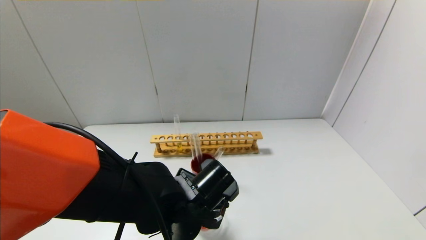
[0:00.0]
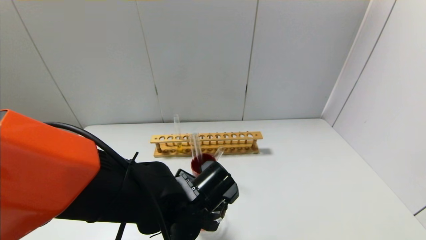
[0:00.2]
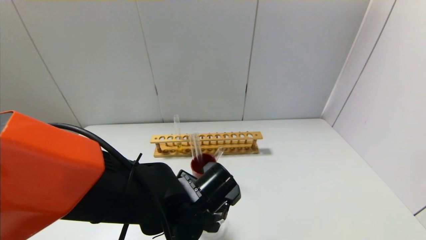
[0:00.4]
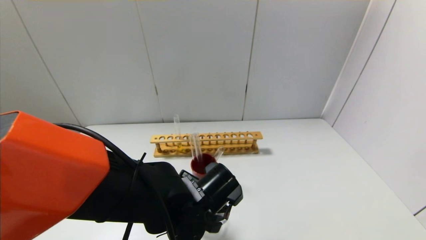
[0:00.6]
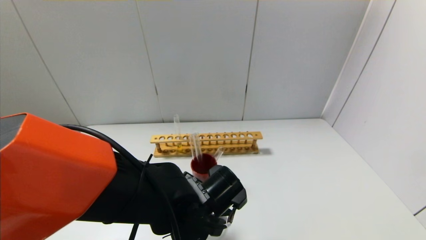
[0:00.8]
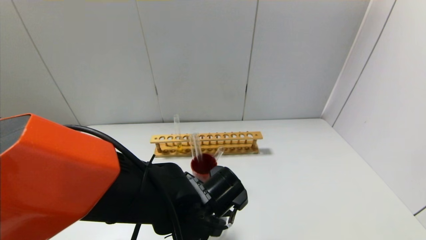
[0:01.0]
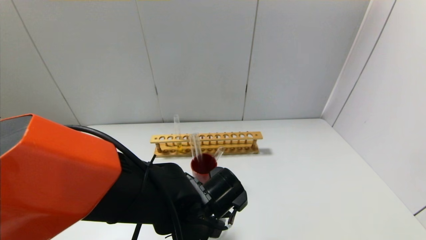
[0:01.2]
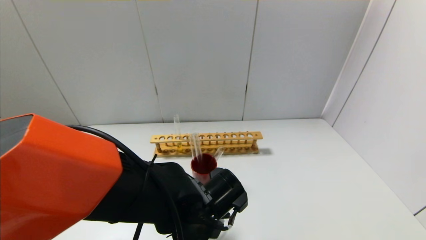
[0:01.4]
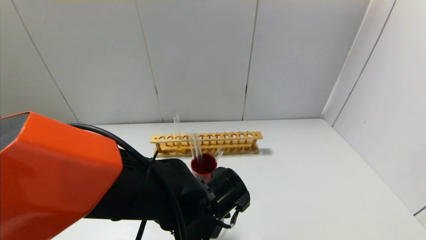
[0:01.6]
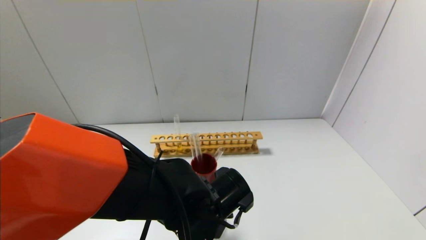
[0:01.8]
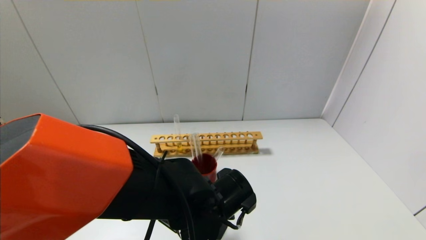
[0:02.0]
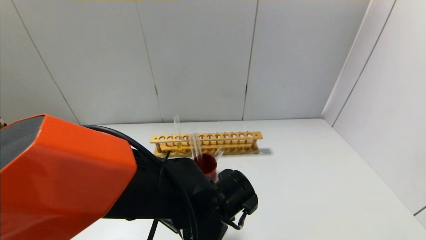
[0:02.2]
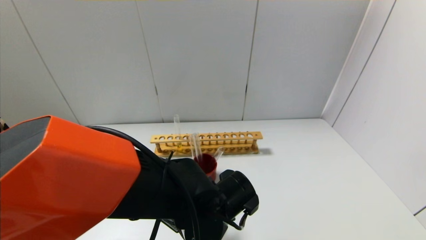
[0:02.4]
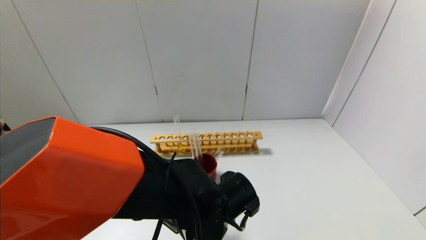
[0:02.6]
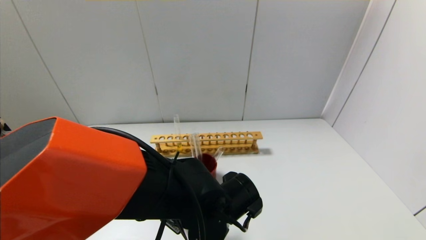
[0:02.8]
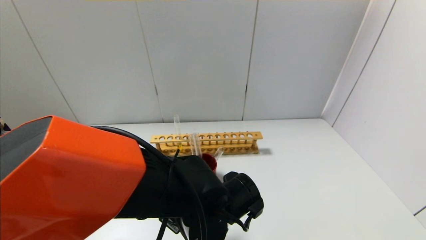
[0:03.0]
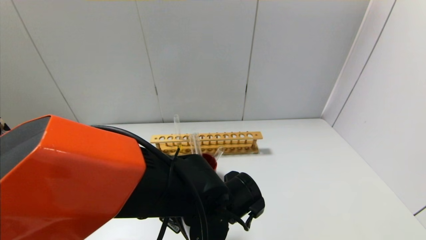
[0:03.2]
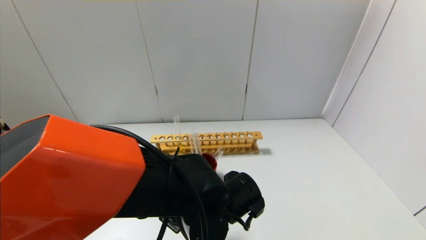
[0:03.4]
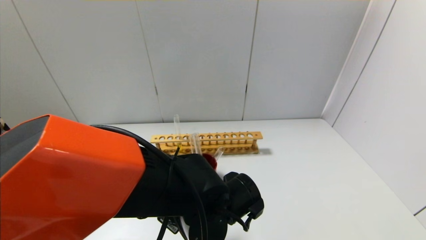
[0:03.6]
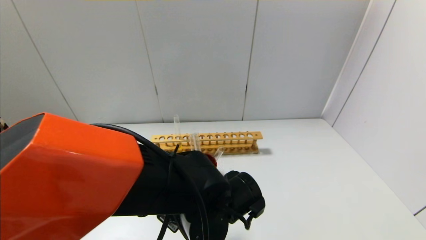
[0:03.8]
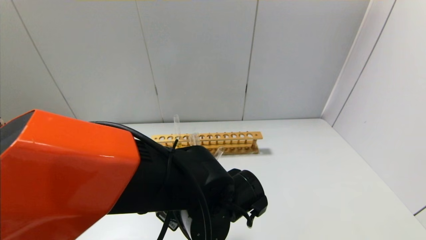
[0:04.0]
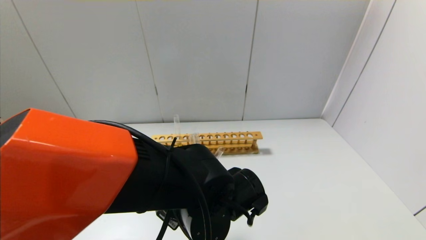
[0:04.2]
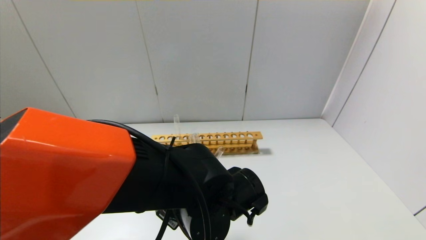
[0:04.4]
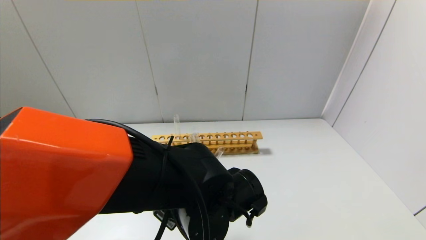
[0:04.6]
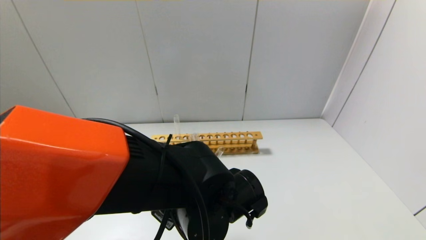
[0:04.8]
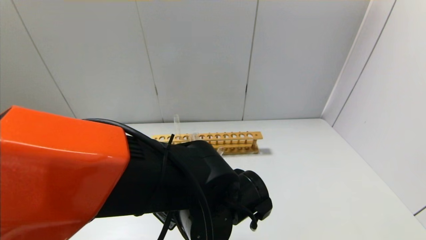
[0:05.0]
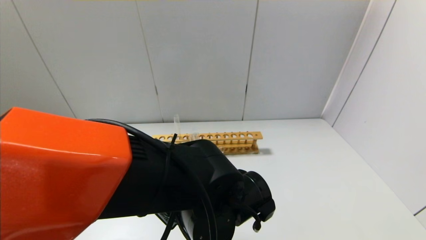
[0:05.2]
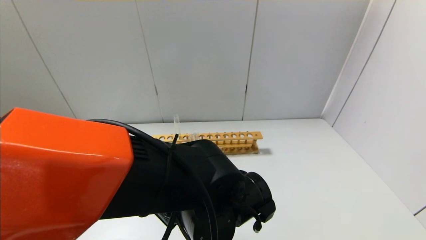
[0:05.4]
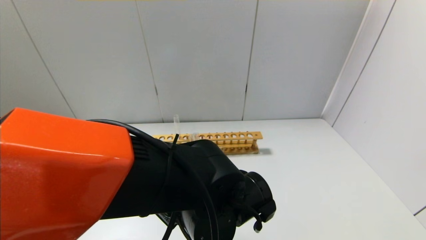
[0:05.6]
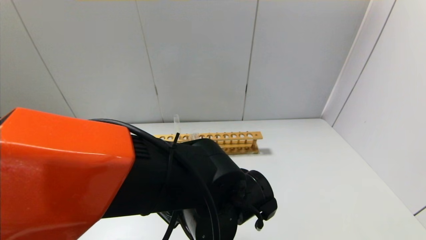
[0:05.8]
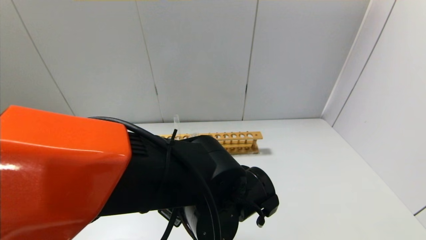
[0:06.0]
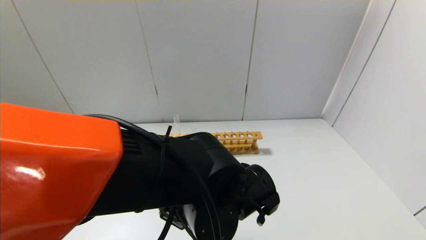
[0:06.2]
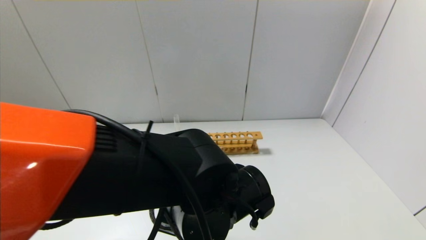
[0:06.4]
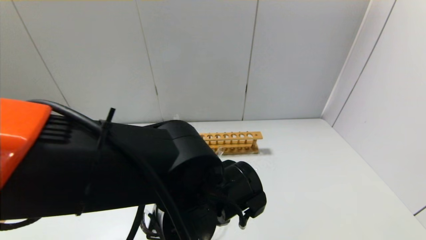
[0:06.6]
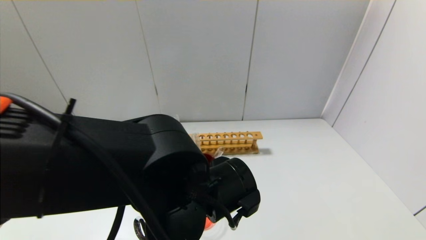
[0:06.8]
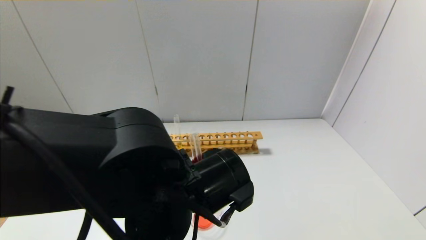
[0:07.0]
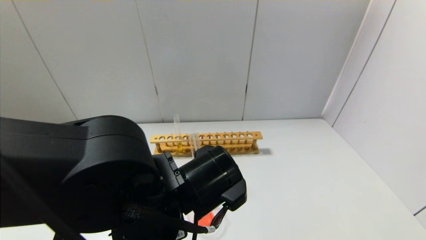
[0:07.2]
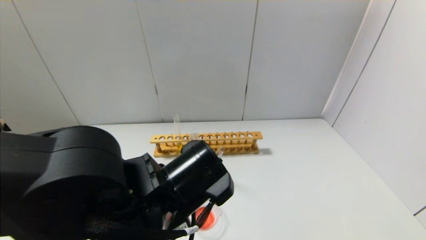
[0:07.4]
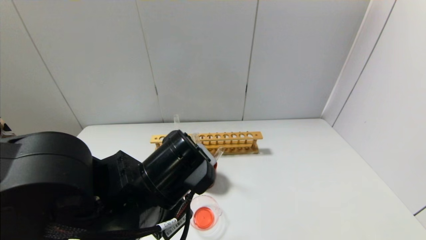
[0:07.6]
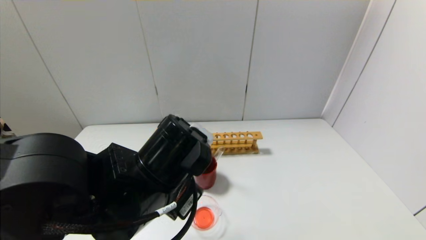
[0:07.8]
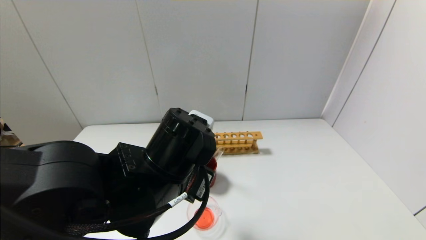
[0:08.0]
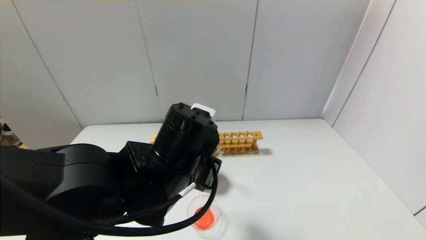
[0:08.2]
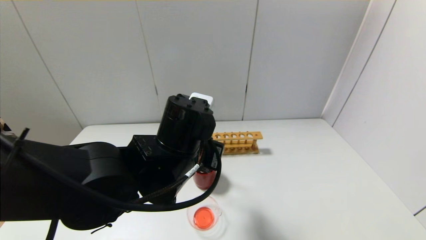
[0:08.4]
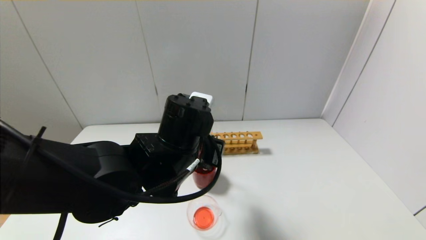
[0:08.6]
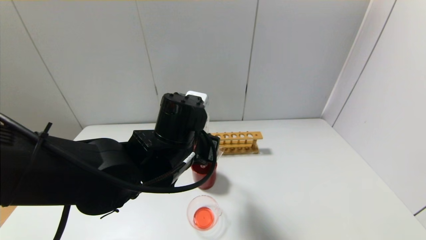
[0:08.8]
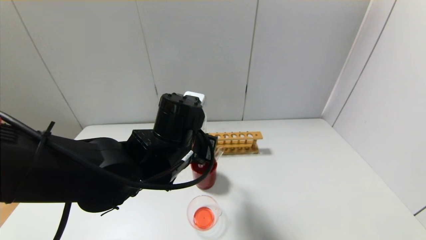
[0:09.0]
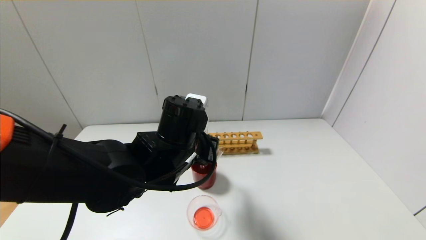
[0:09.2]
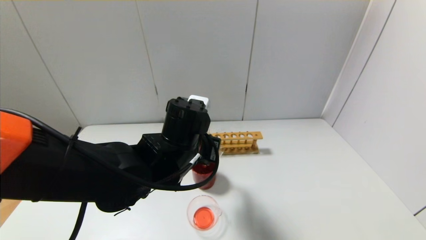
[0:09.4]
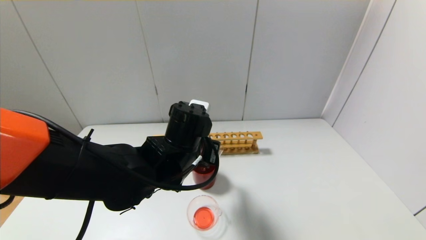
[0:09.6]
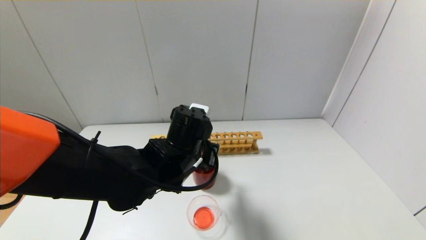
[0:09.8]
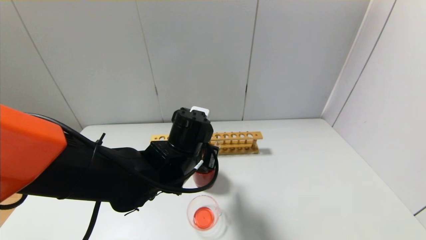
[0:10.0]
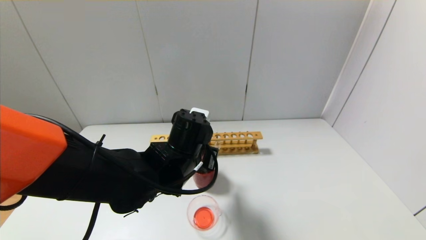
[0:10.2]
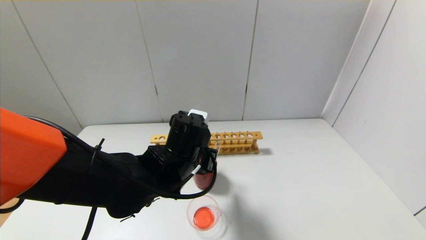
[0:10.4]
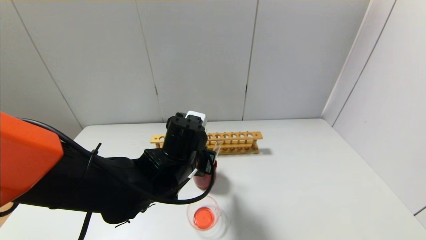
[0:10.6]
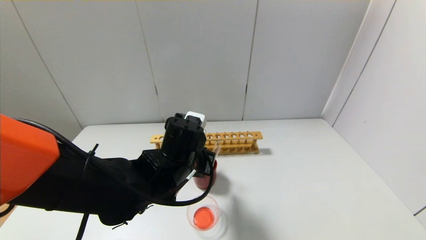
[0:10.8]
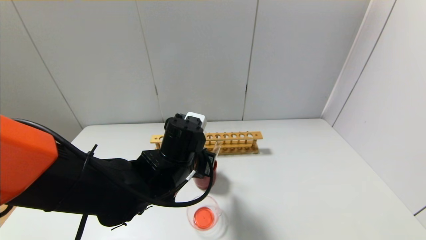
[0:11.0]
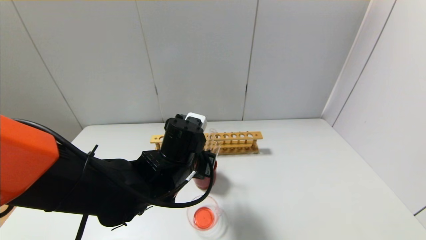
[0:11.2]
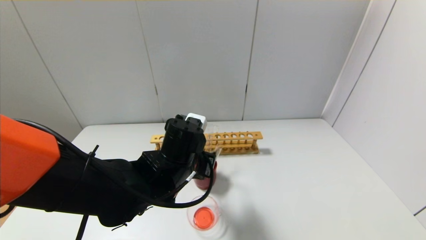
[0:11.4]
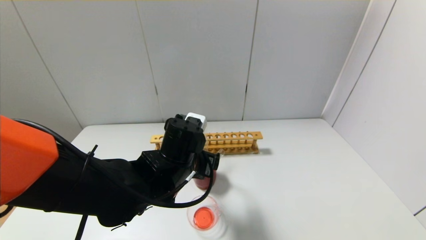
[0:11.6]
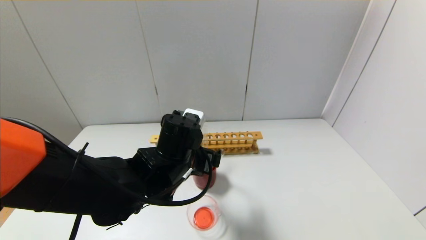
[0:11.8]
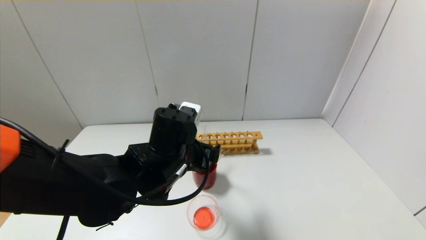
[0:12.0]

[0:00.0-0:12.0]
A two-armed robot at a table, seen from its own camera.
Step, 0:00.0 to 0:06.6: Pour the red reagent into the graduated cylinder with the left gripper.
Step, 0:06.8 to 0:11.2: Place the test tube into the brown cup with the left gripper.
0:00.0 to 0:04.4: There are only small adjustments of the grippers.
0:04.4 to 0:06.0: The grippers make only small movements.
0:06.0 to 0:07.6: The left gripper travels to the left by approximately 5 cm.
0:07.6 to 0:09.0: The left gripper travels forward by approximately 10 cm.
0:09.0 to 0:10.4: The grippers stay close to where they were, moving slightly.
0:10.4 to 0:12.0: The left gripper opens its fingers.

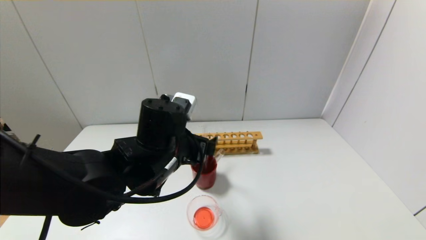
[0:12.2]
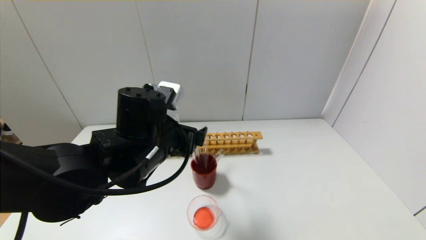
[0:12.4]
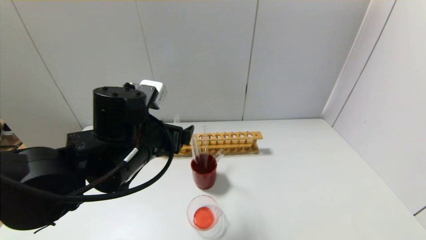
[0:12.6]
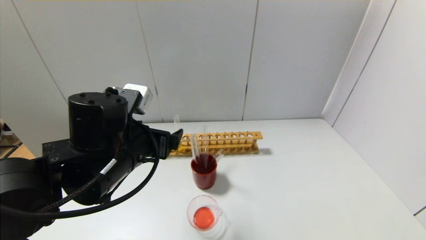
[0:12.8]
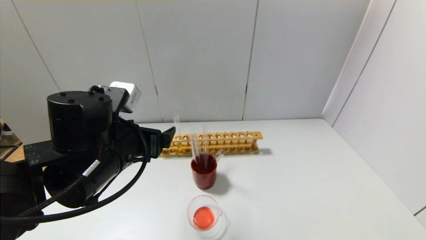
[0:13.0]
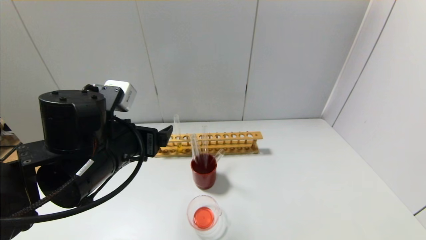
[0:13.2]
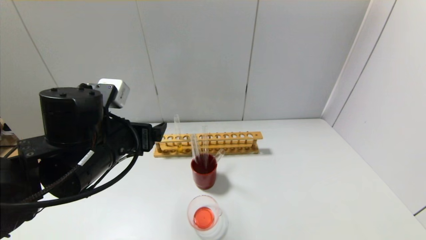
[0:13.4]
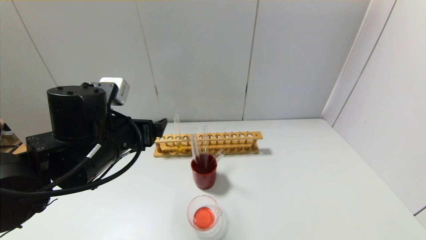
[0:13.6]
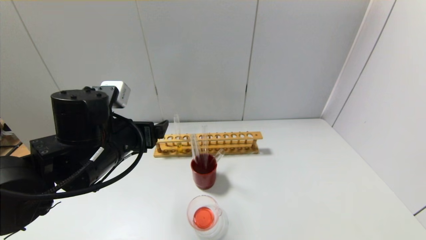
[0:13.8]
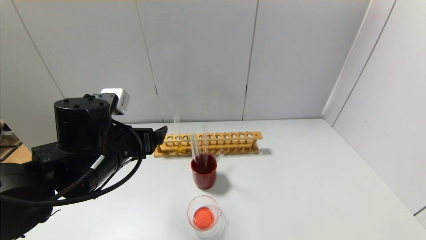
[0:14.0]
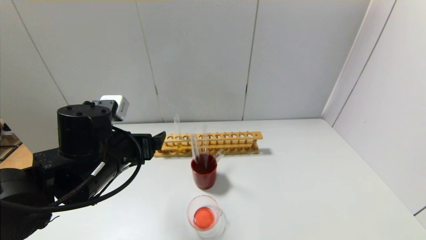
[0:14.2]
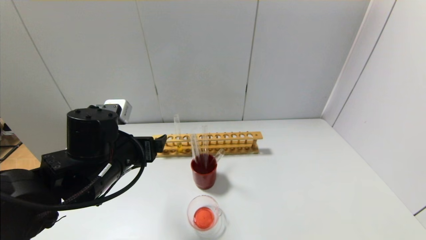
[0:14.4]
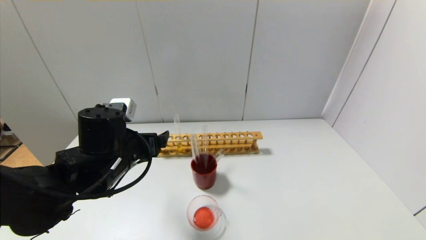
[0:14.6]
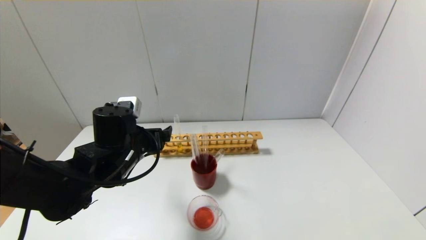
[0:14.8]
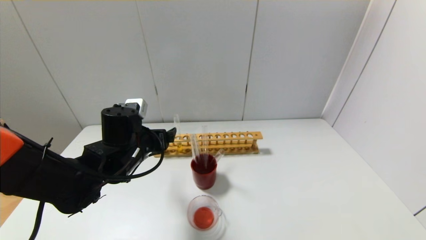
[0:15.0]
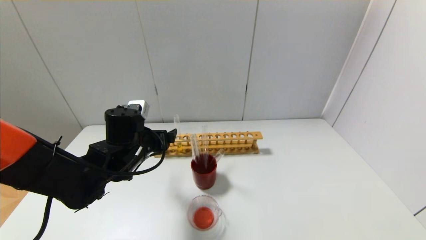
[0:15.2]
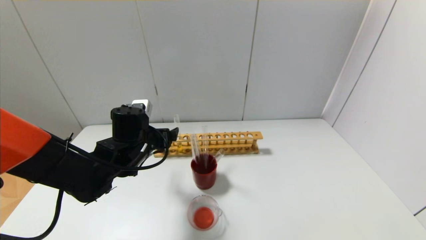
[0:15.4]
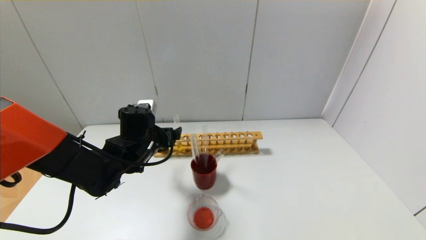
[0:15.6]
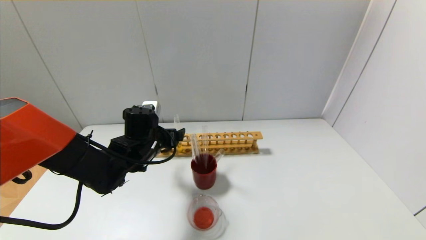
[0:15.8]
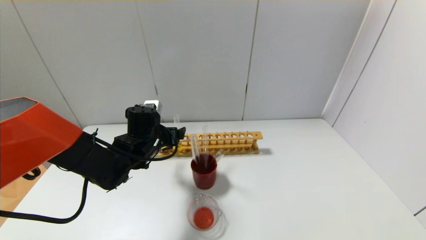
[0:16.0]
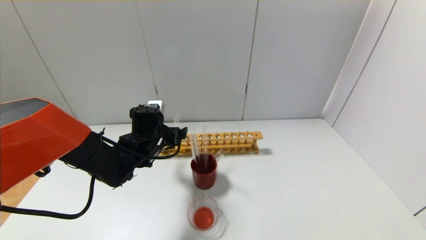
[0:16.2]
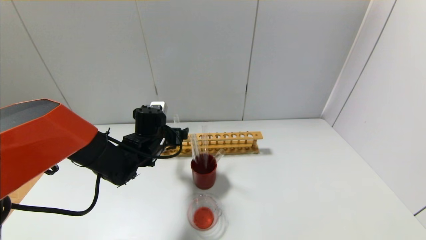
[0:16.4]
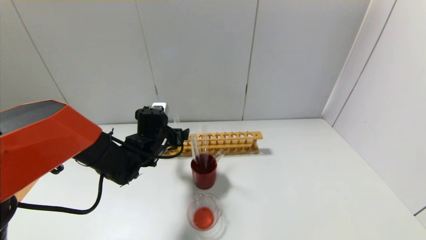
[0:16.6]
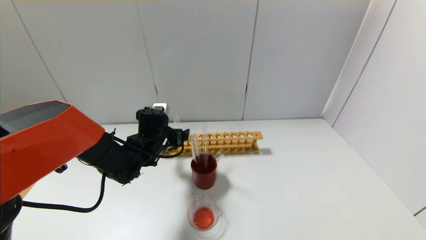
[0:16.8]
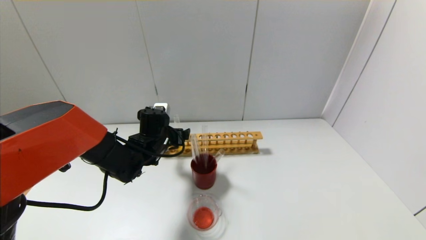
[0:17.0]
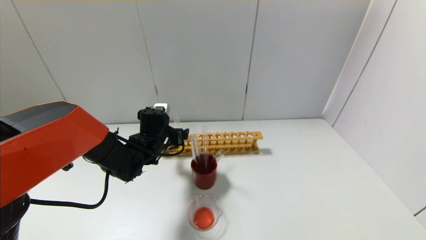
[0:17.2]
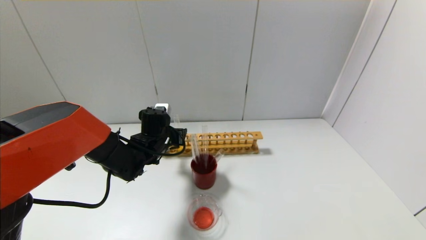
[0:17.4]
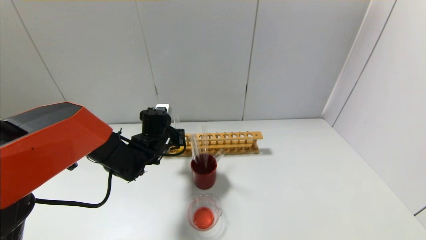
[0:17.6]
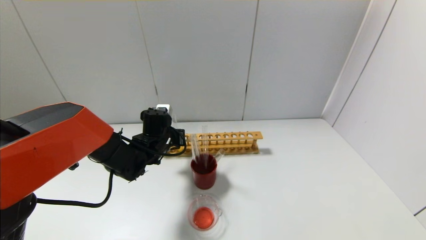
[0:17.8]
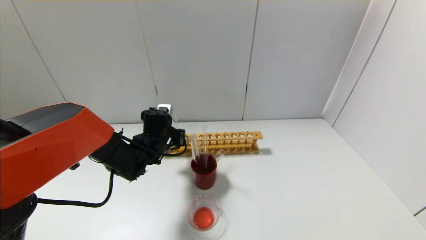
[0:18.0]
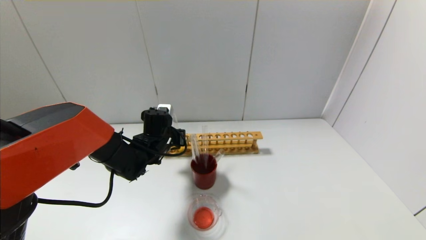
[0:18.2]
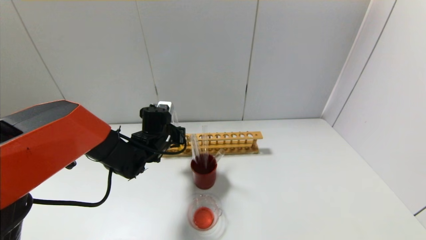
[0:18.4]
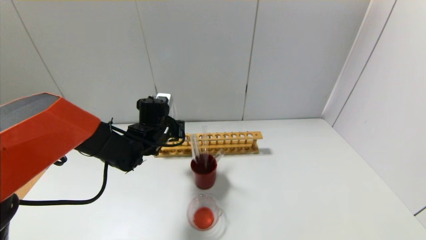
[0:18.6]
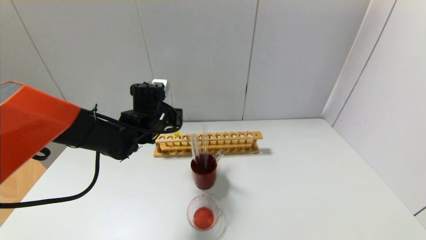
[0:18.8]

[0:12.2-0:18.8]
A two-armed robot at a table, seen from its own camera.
Step, 0:12.2 to 0:18.2: Grasp the yellow reagent with the left gripper.
0:12.2 to 0:13.8: The left gripper moves to the left, some 10 cm.
0:13.8 to 0:15.4: The left gripper shifts about 10 cm forward and downward.
0:15.4 to 0:17.2: The left gripper heads forward, covering some 5 cm.
0:17.2 to 0:18.8: The left gripper heads upward, covering some 5 cm, and closes.
